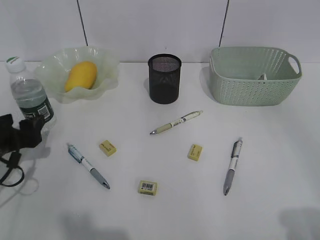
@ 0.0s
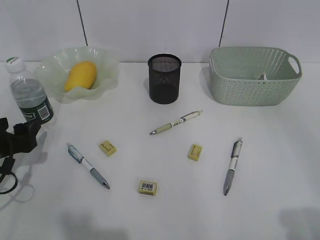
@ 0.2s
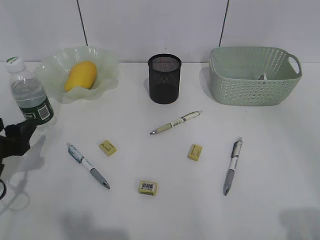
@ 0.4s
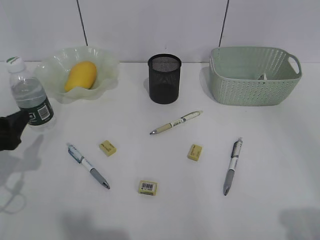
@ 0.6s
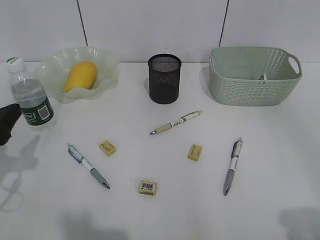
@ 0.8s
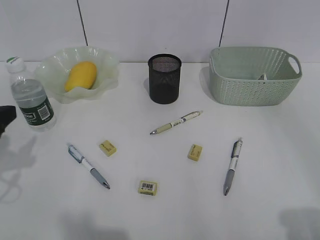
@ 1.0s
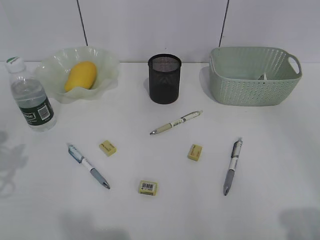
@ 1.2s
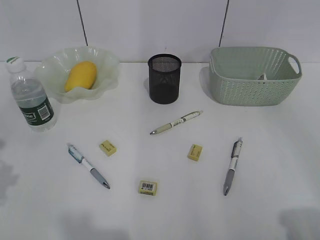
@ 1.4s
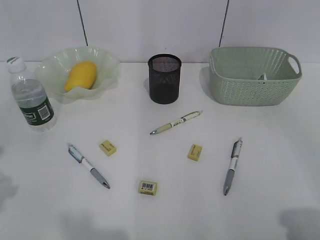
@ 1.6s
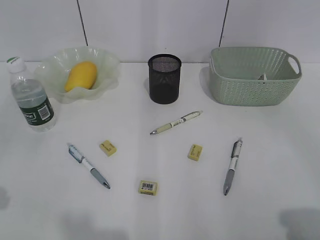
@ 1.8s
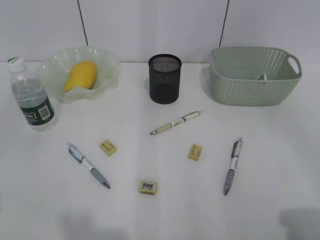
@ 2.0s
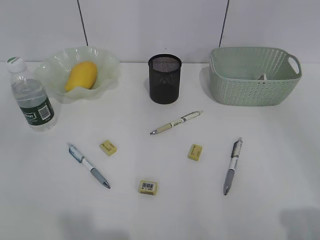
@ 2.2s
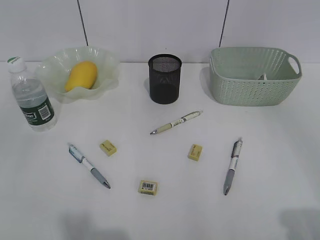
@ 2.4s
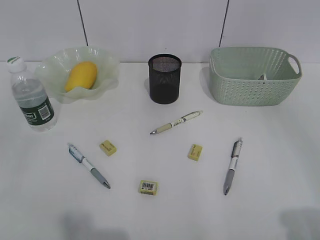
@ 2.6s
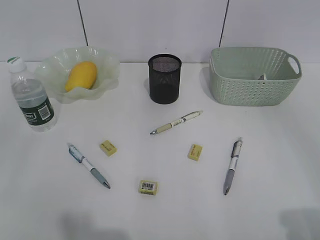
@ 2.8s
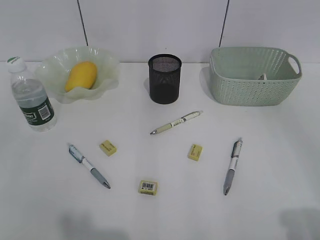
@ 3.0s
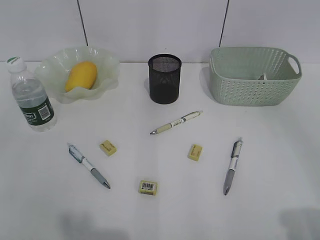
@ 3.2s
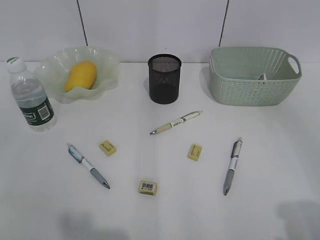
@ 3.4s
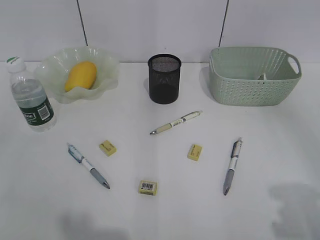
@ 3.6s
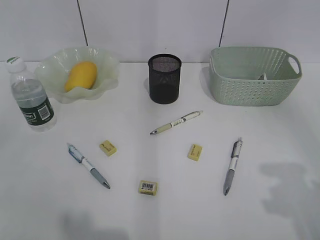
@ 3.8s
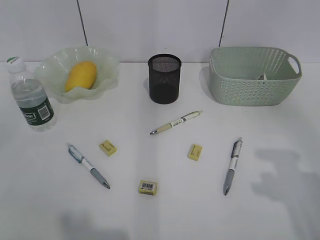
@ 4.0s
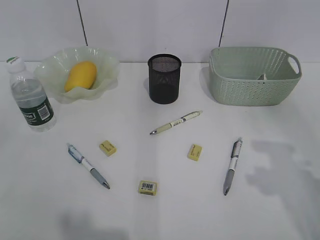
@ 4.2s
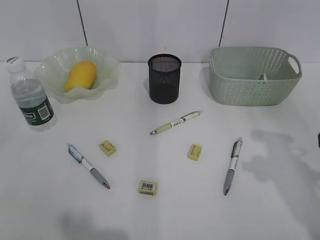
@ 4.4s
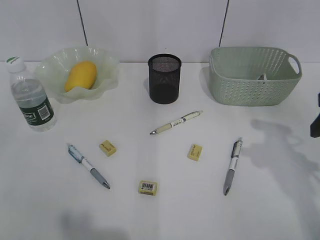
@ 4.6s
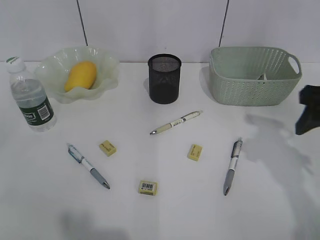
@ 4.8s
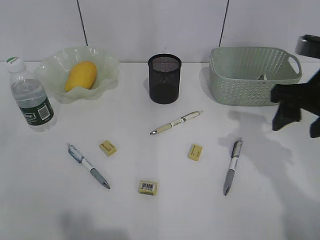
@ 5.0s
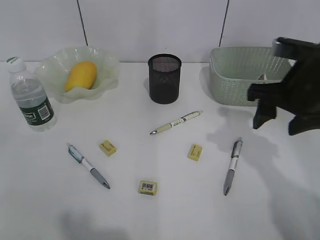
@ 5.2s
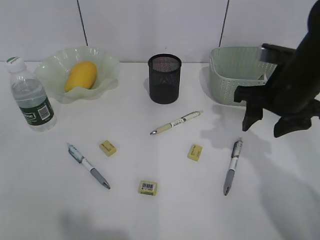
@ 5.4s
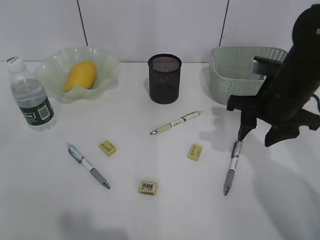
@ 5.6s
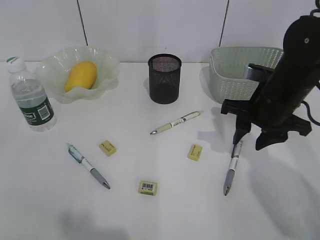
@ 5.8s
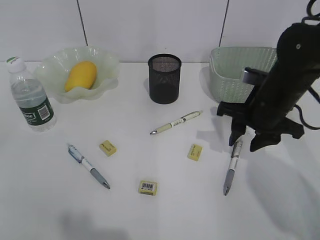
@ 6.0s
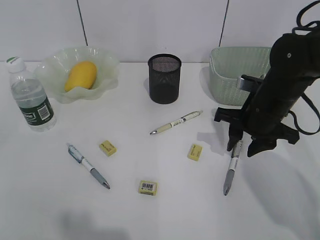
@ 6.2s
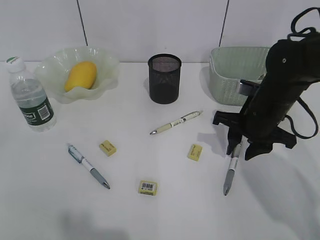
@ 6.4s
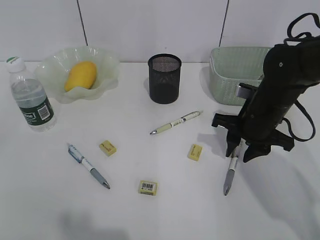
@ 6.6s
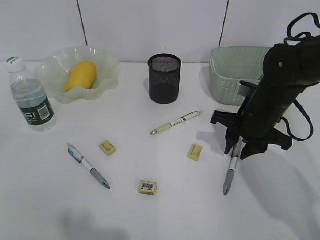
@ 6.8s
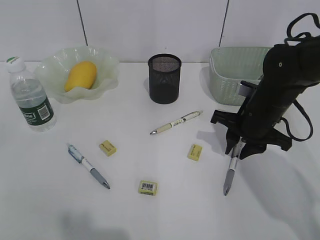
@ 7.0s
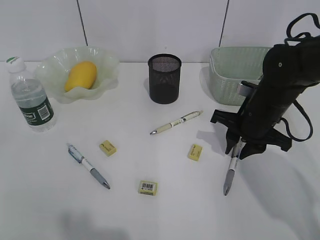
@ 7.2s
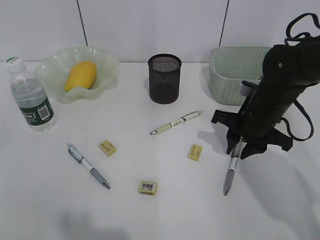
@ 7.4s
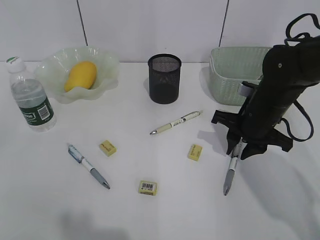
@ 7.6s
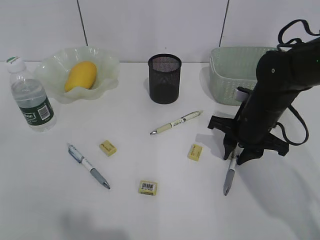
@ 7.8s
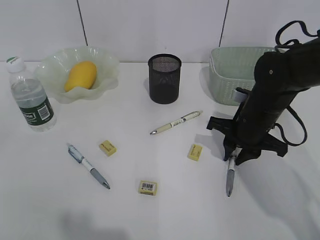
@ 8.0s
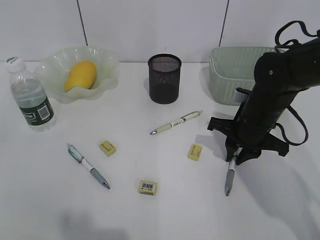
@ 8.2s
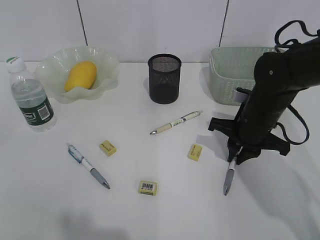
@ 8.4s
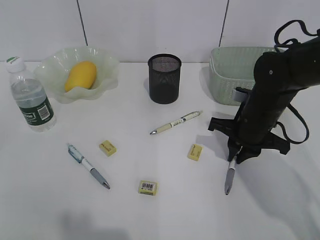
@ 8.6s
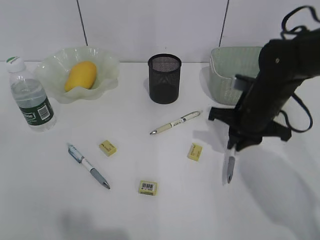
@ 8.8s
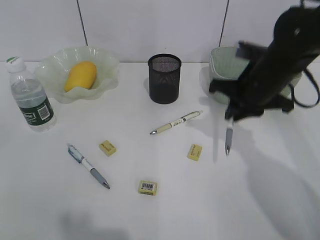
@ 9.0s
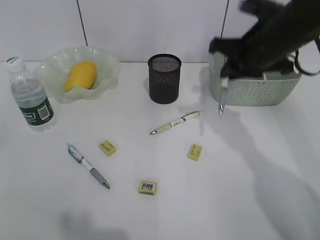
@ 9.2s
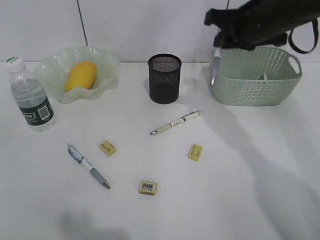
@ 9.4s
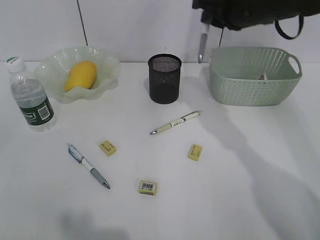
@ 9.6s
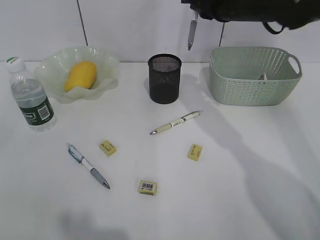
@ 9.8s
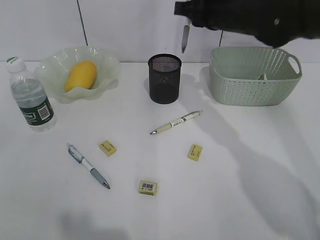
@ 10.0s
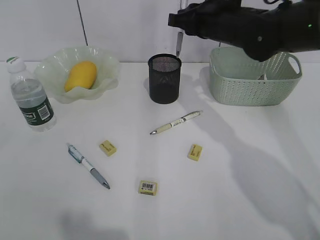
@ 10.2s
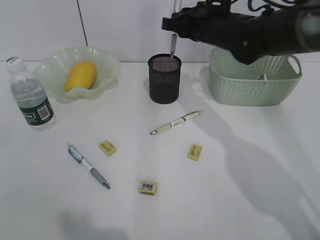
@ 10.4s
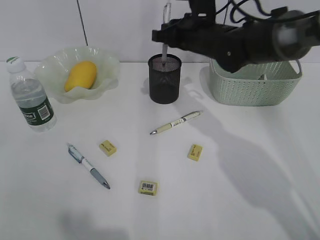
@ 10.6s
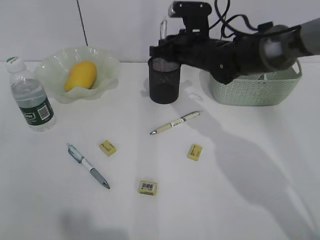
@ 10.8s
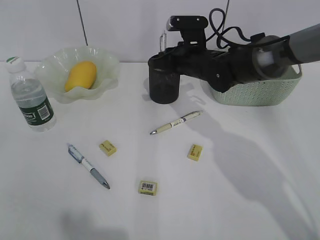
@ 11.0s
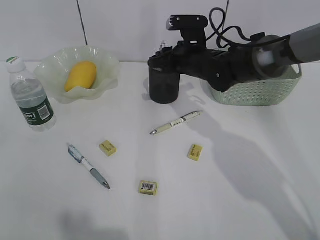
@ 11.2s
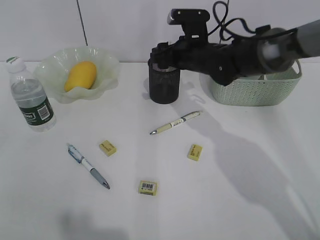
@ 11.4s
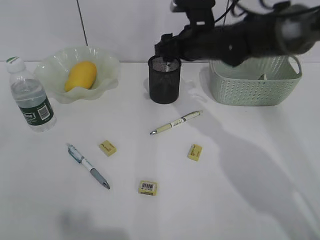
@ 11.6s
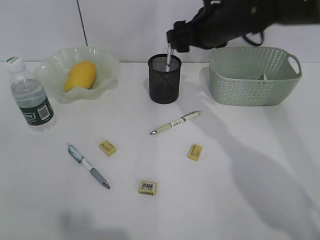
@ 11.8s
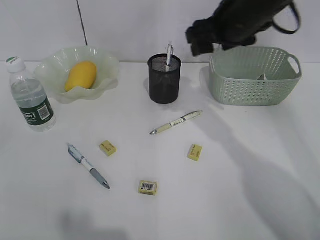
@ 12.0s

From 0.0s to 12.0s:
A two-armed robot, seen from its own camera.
Step, from 0.0s to 8.6s: Grasp the gray pen with right gripper.
Step, from 8.8s to 11.2s: Place the gray pen in pen holder with right gripper.
From 0.0s to 1.6s: The left gripper travels upward and backward by about 20 cm.
From 3.0s to 4.4s: The right gripper goes approximately 20 cm forward.
From 4.4s to 6.0s: The right gripper is displaced forward, downward and to the left by some 20 cm.
From 6.0s to 7.6s: The grippers move only a little.
From 7.6s to 9.0s: The right gripper is displaced upward by approximately 5 cm.
From 9.0s to 10.4s: The right gripper goes some 10 cm forward and to the left, and moves roughly 10 cm upward and comes back.
From 10.4s to 12.0s: The right gripper is displaced backward and upward by about 10 cm, and opens.

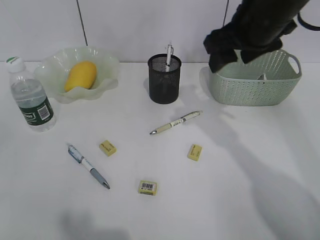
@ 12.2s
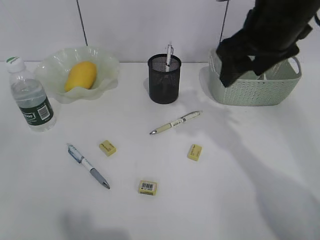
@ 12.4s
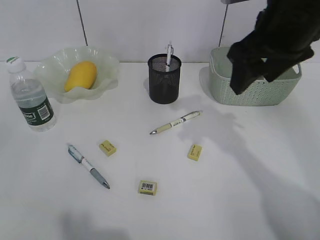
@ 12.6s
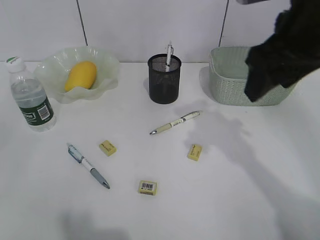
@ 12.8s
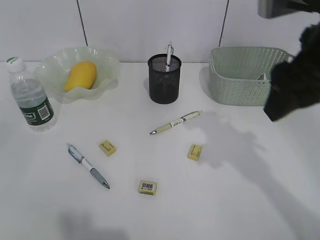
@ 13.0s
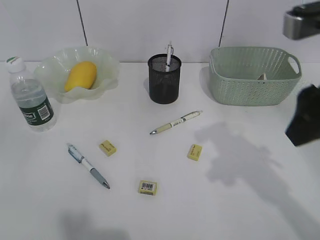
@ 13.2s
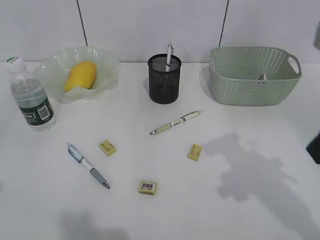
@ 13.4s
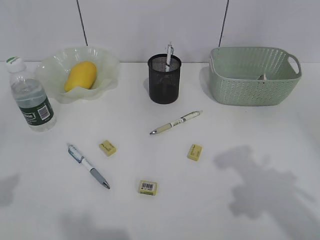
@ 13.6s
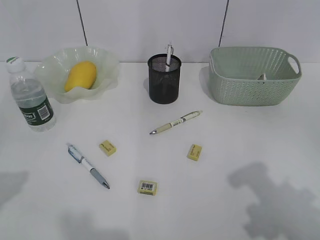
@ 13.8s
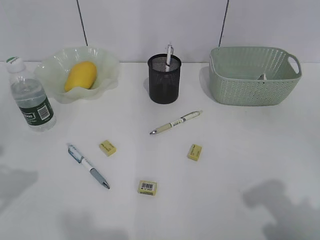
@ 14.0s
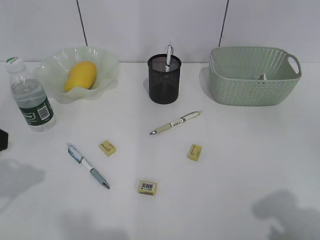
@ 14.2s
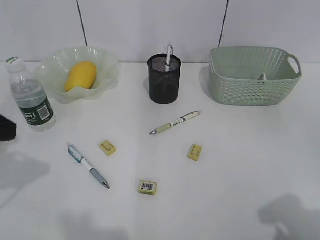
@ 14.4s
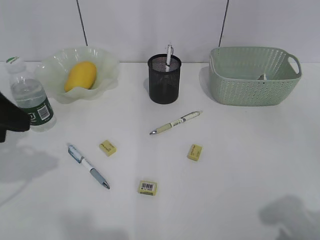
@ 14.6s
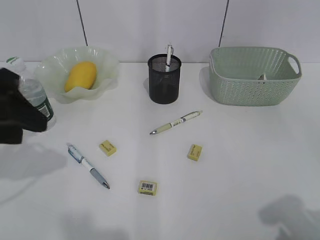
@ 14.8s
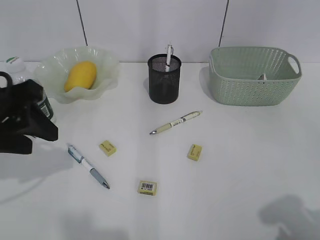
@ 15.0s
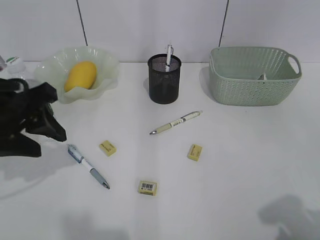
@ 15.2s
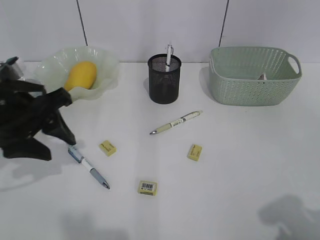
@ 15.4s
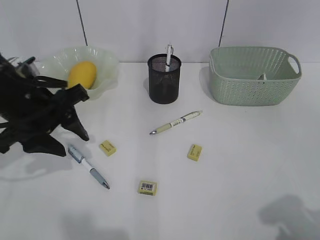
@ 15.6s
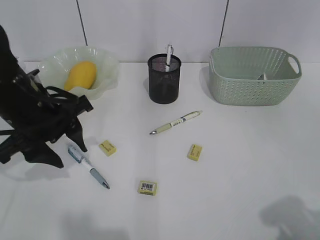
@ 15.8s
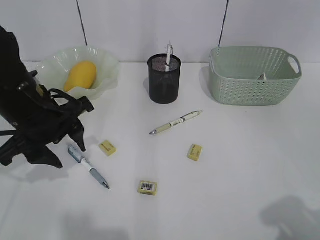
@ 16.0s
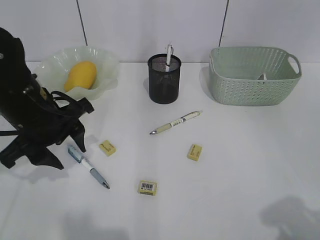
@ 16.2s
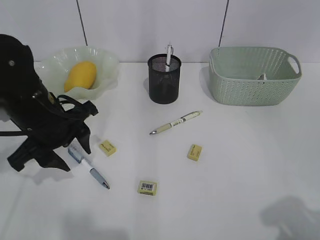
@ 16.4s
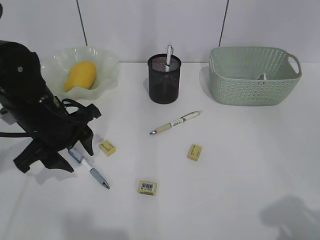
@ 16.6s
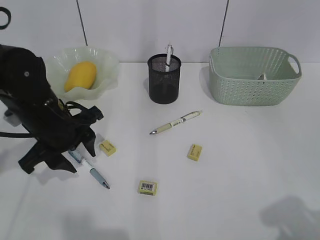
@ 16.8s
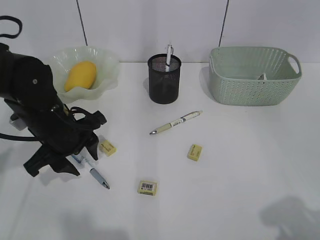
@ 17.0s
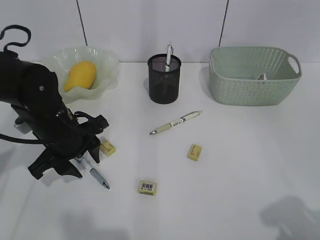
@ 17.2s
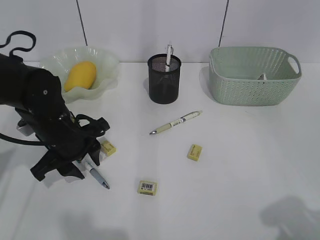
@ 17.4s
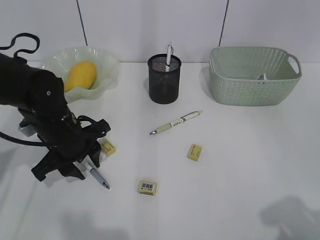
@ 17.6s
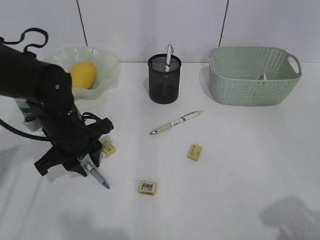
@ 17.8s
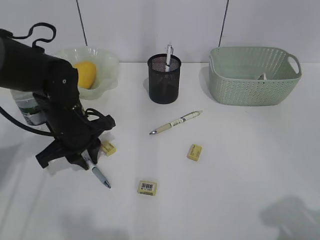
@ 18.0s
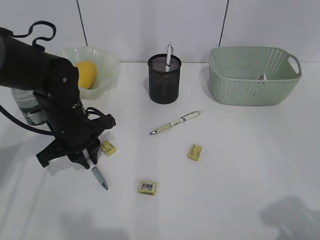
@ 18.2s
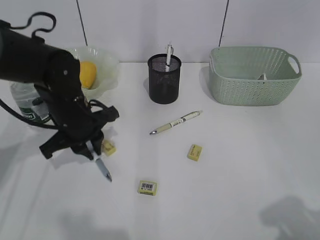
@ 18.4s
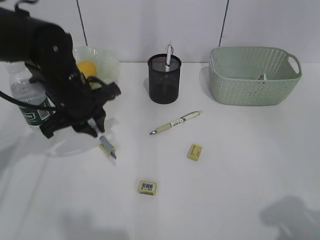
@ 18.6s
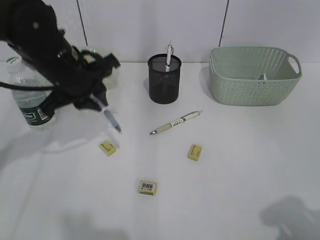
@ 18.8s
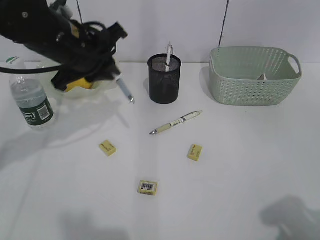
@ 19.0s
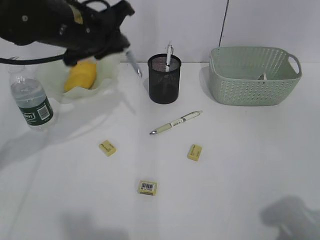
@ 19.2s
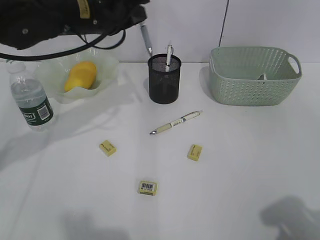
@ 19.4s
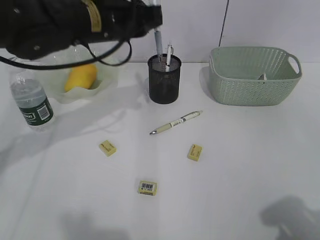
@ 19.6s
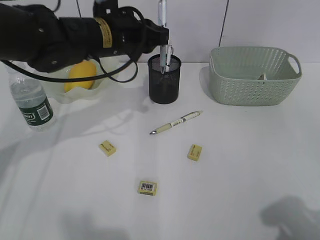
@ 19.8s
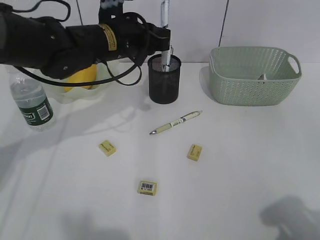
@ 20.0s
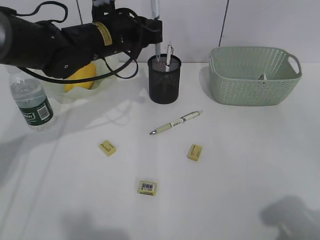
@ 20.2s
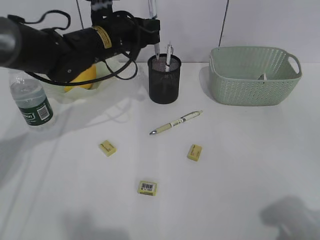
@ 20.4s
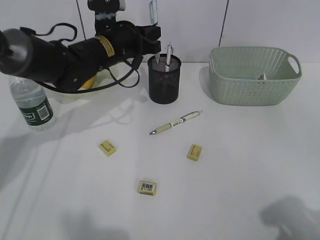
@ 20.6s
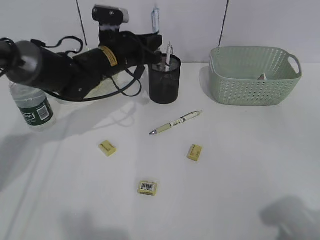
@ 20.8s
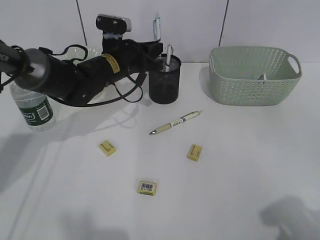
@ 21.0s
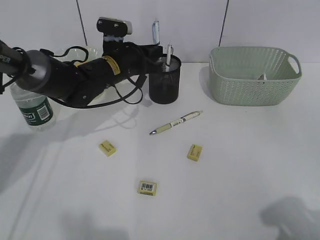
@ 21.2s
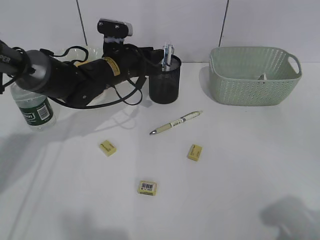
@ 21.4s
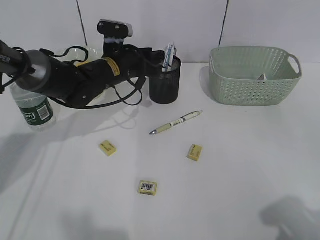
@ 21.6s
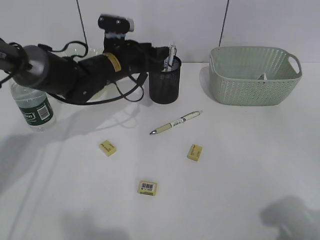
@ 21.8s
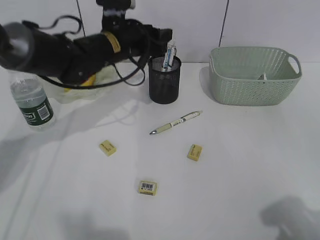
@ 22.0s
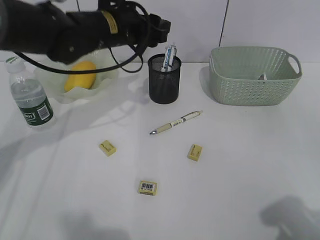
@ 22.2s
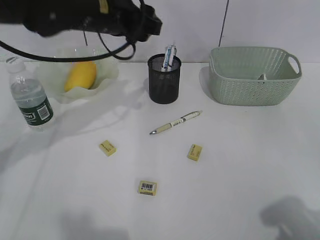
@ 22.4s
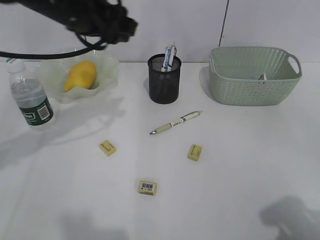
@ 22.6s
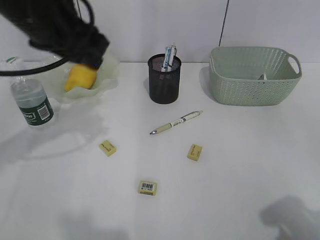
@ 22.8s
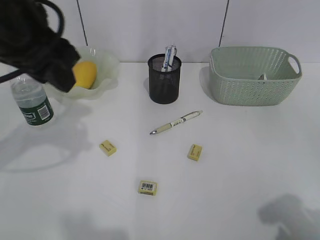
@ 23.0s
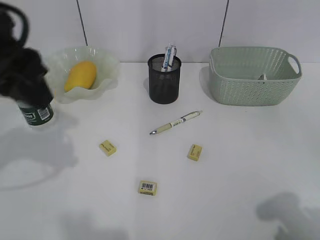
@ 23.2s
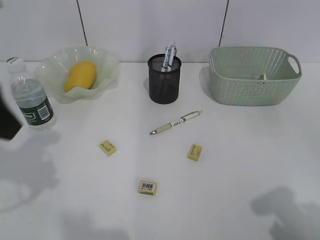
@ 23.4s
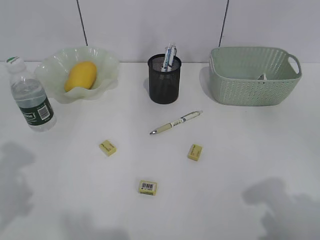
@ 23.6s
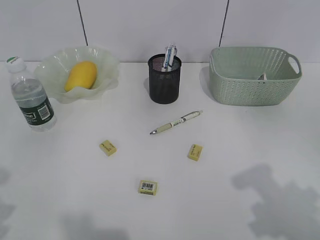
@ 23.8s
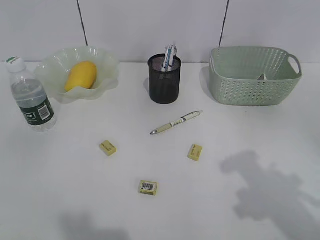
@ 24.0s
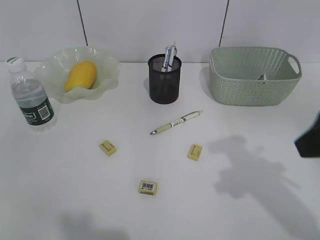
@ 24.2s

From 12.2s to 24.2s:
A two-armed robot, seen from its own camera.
Step, from 12.2s to 18.0s: Grasp the blue pen with left gripper.
Step, from 18.2s to 21.6s: Place the blue pen in pen holder with left gripper.
From 12.2s to 13.8s: The right gripper is displaced backward and to the right by some 25 cm. Meanwhile the left gripper heads forward, covering approximately 10 cm.
From 13.8s to 15.2s: The right gripper moves backward, roughly 5 cm. The left gripper shifts some 15 cm forward, downward and to the right.
From 15.2s to 16.6s: The left gripper moves downward, about 5 cm.
From 16.6s to 18.2s: The left gripper moves approximately 5 cm, and closes.
From 18.2s to 19.8s: The left gripper is displaced upward, to the right and forward by approximately 15 cm.
From 19.8s to 21.2s: The left gripper moves downward and forward, about 10 cm.
From 21.2s to 22.6s: The left gripper travels upward and backward by about 20 cm, and opens its fingers.
From 22.6s to 24.2s: The right gripper heads forward and to the left, covering some 15 cm; the left gripper goes about 35 cm backward and to the left.
